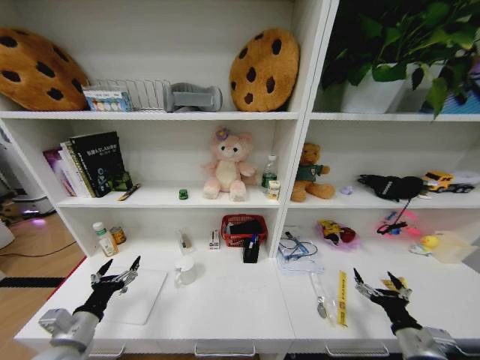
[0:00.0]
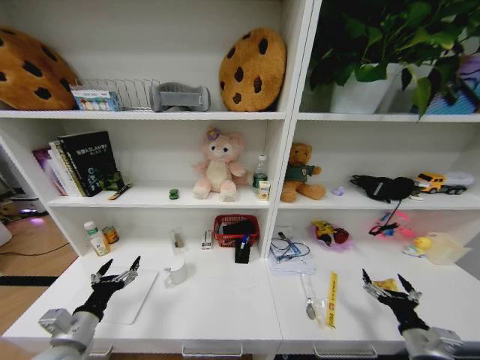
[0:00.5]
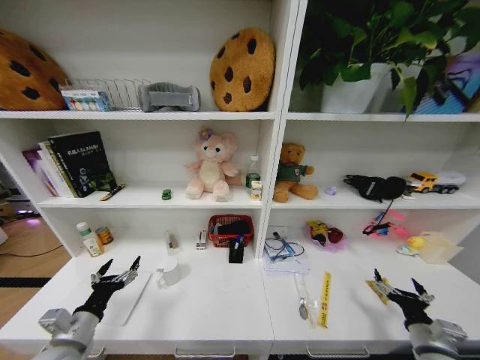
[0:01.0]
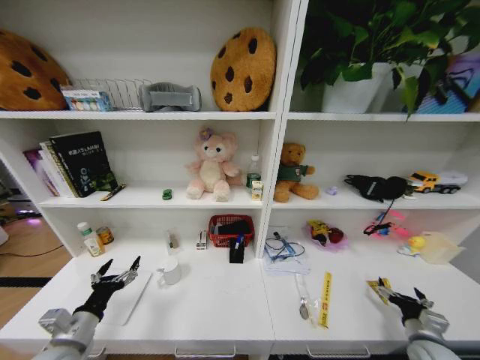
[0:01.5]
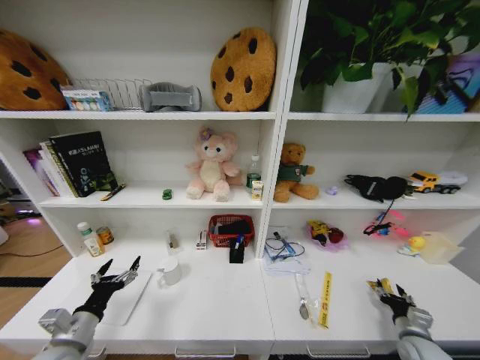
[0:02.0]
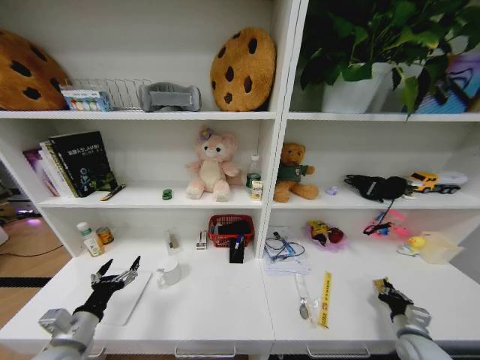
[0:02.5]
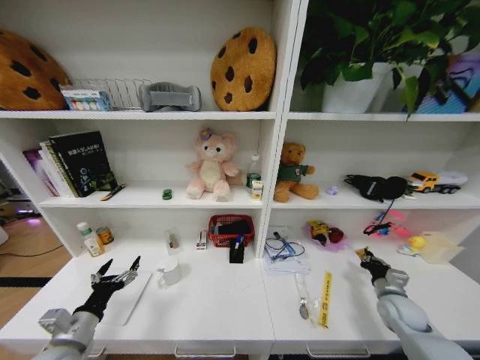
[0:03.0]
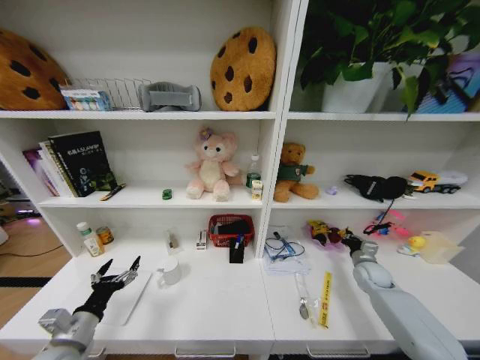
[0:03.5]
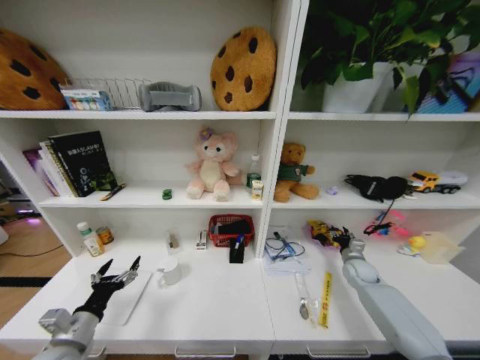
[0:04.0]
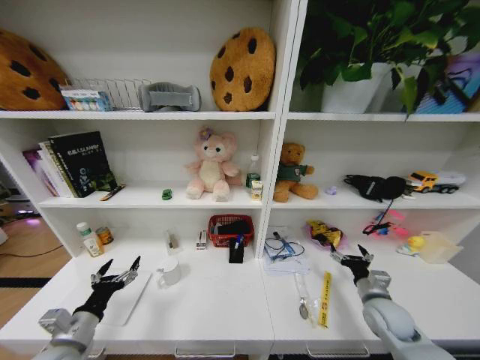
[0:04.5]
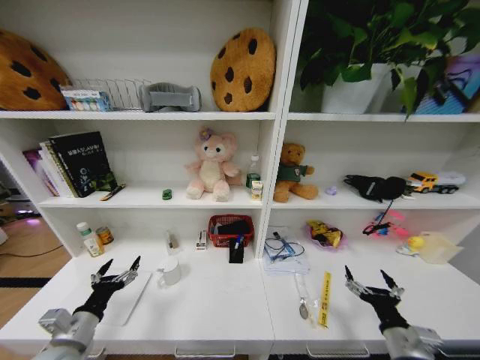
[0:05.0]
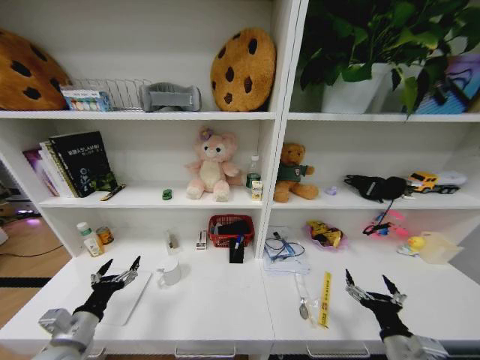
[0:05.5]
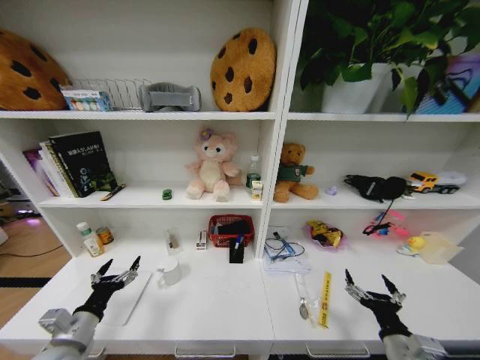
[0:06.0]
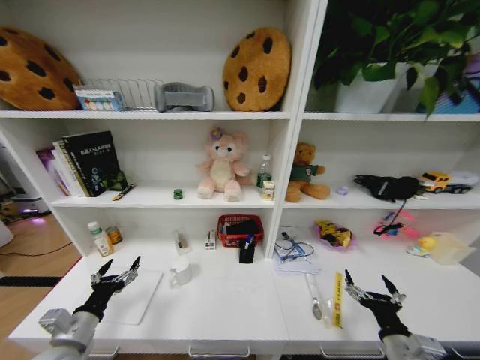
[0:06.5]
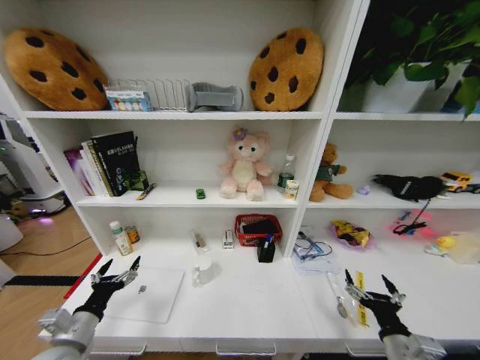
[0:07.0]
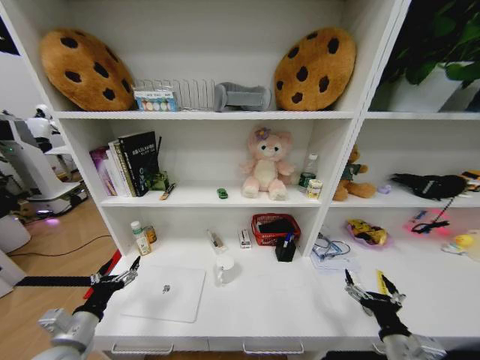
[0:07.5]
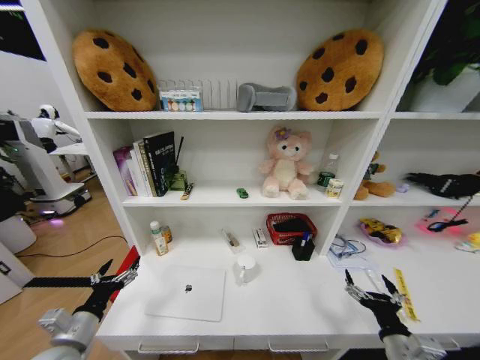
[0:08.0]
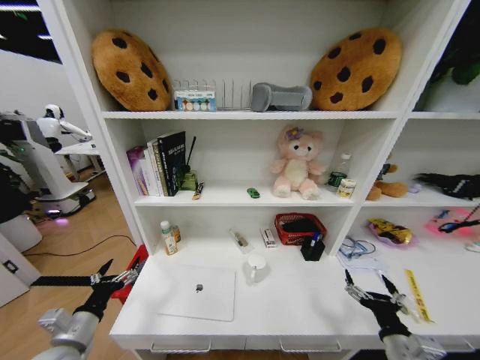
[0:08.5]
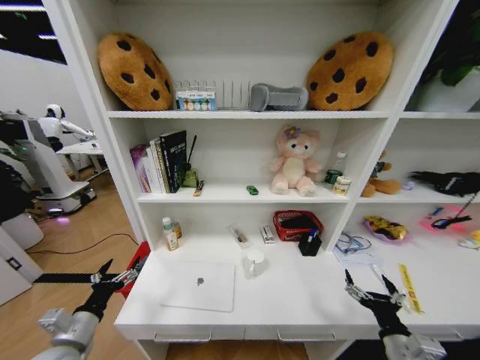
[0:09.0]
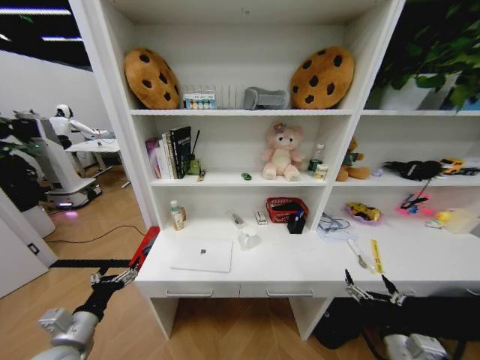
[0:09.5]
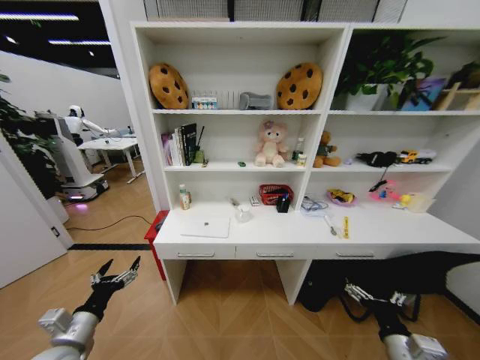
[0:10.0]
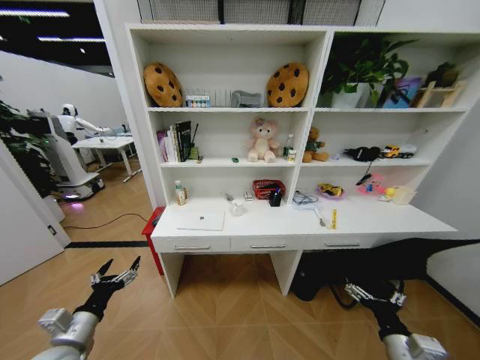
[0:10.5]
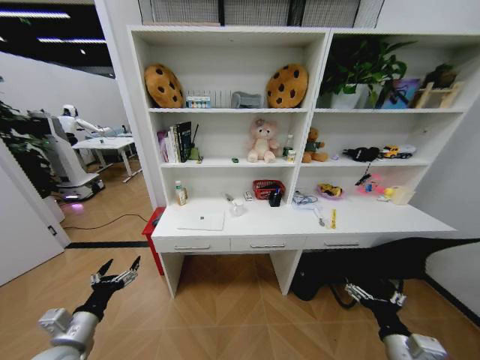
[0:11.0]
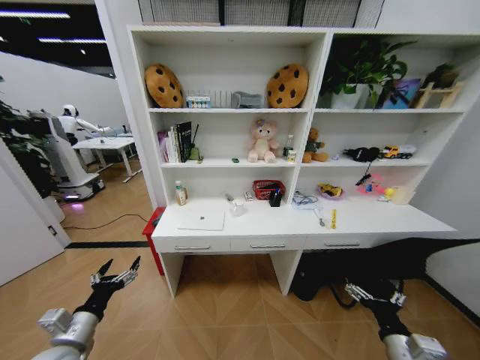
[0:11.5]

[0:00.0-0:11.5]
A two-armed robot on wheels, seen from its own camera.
Task of the whole recording: Organize the objects on the table.
0:00.0 to 0:02.0: The right gripper is displaced to the right, downward and forward by about 15 cm, and closes up.
0:02.0 to 0:04.0: The right gripper is displaced forward by some 20 cm, and closes, then reopens.
0:04.0 to 0:06.0: The right gripper shifts some 30 cm backward, and opens its fingers.

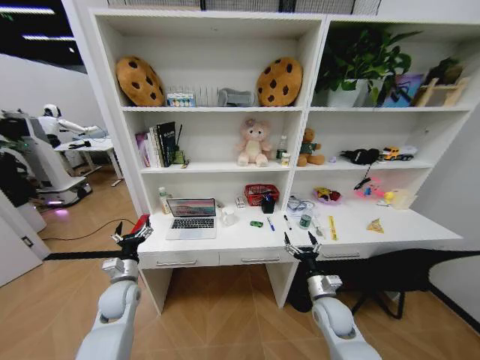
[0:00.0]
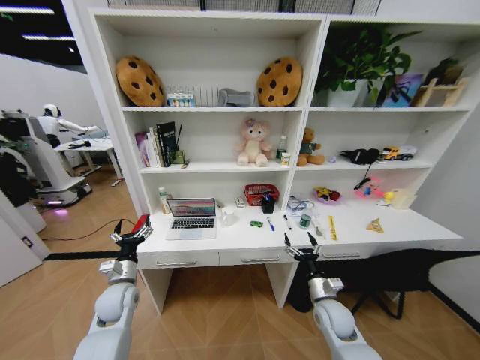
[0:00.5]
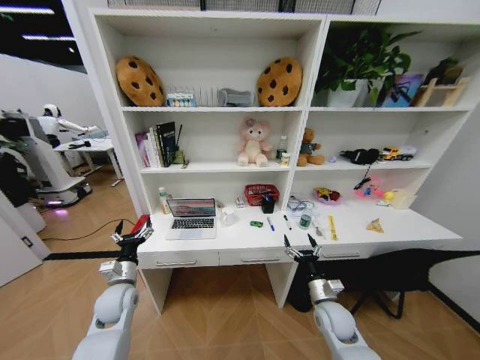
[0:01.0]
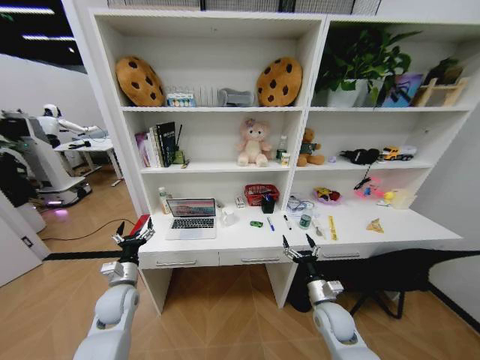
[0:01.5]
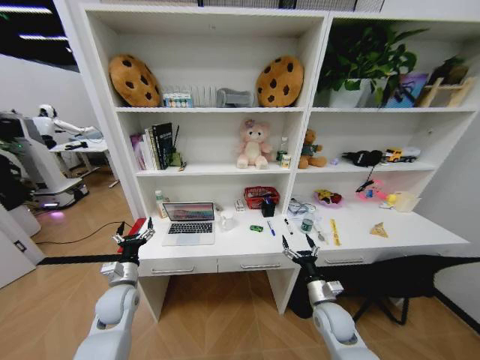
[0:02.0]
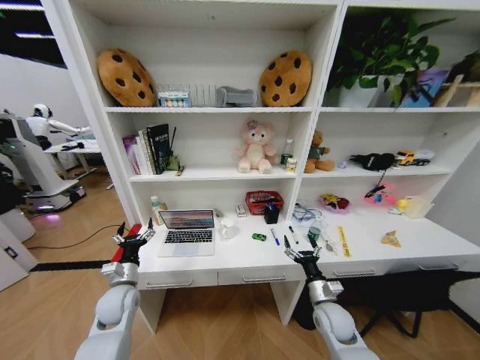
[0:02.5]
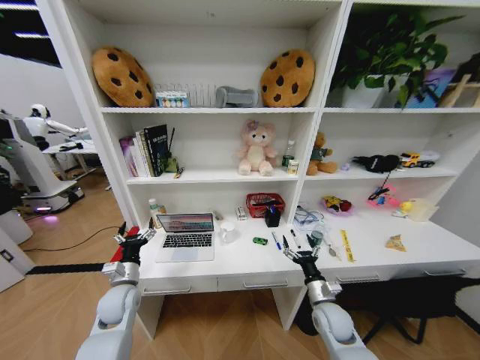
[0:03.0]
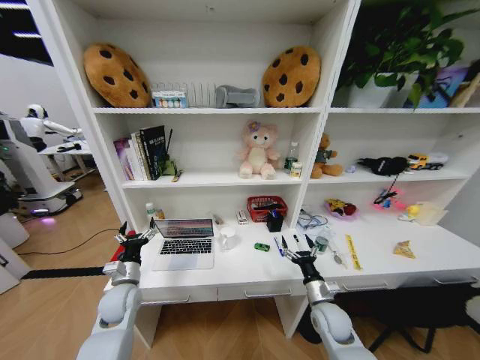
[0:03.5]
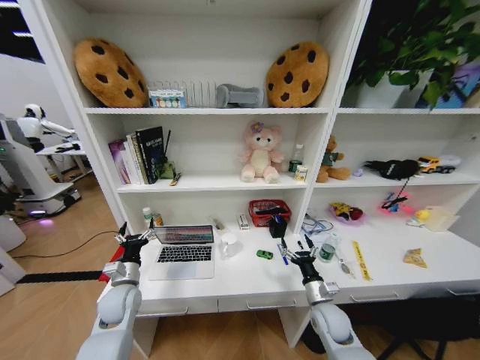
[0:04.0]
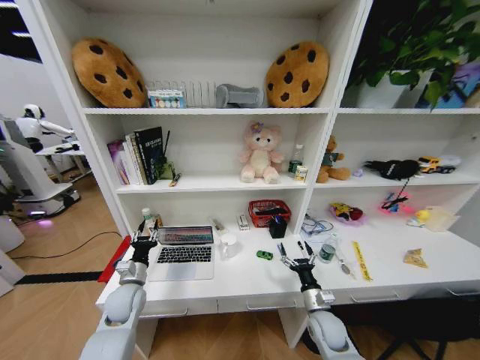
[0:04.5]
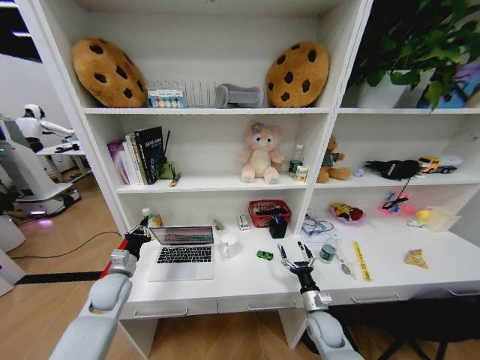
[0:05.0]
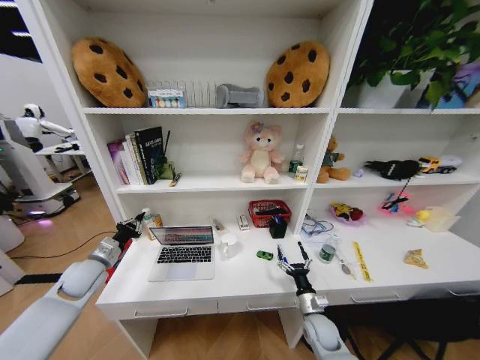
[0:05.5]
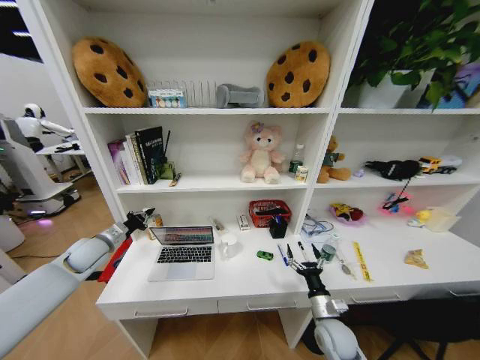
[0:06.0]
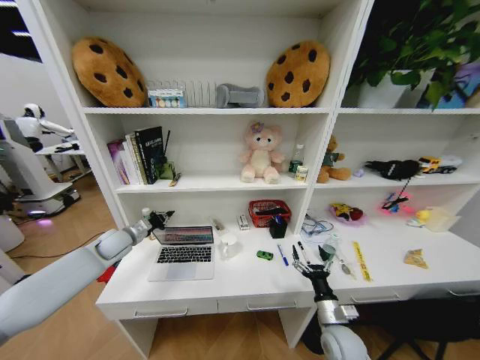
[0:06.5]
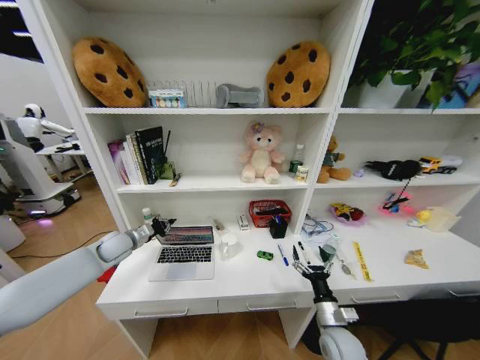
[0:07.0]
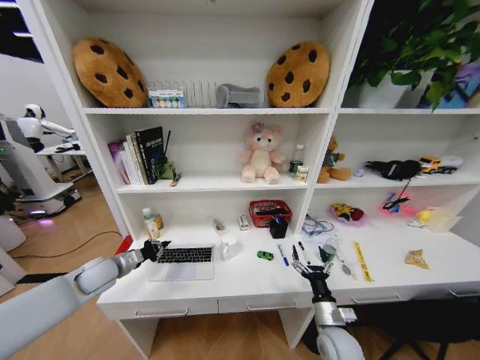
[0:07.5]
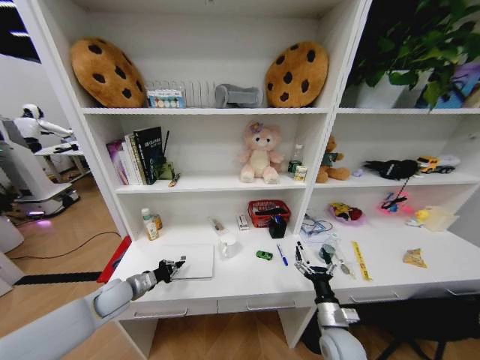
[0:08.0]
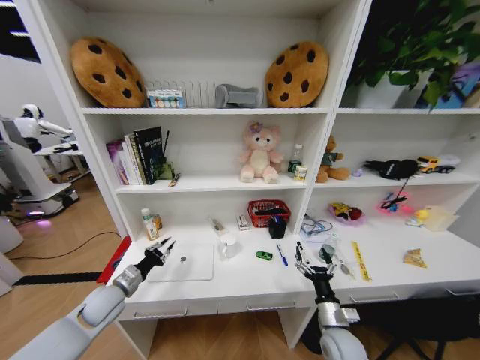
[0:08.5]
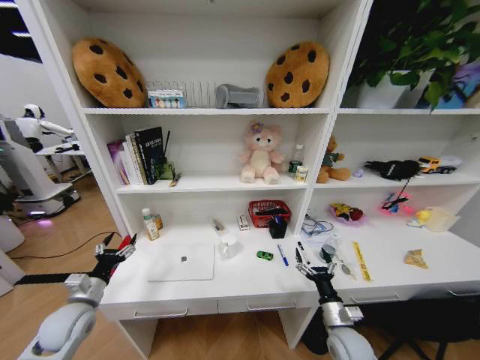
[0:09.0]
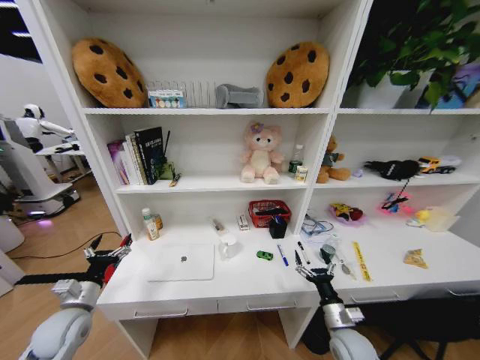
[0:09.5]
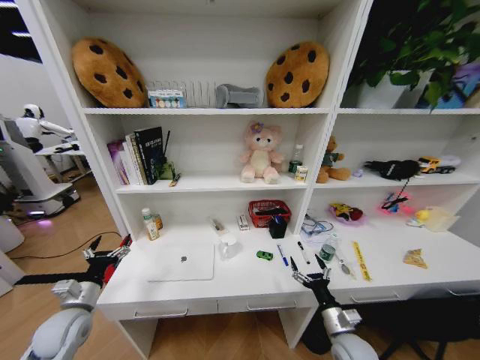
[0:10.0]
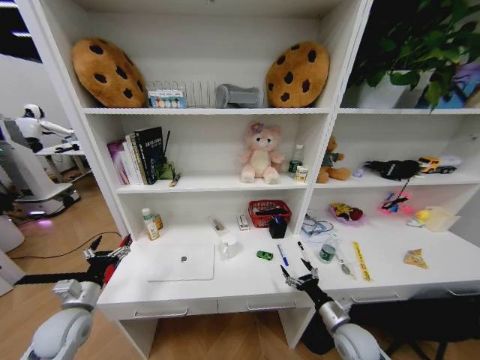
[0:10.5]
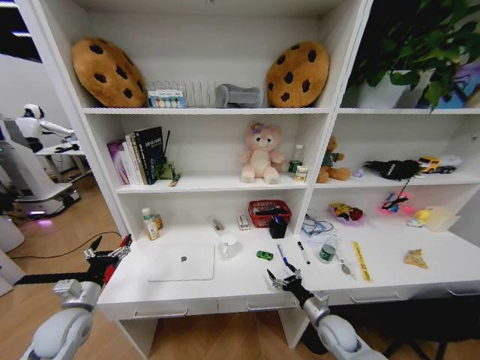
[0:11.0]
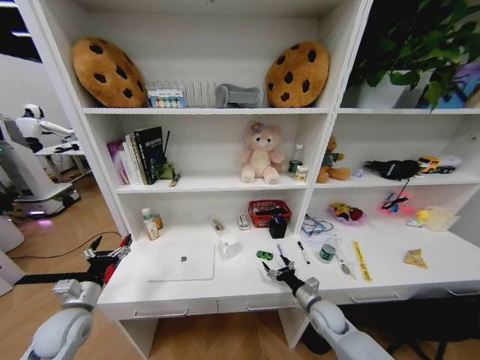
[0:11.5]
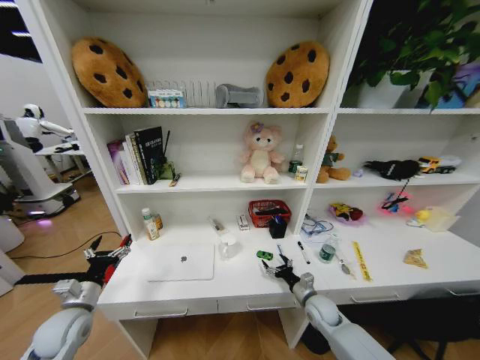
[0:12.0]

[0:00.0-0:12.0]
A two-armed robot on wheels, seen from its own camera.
Task of the whole recording: Organize the objects on the table.
0:04.0 to 0:06.0: The left gripper is displaced to the left, upward and forward by about 15 cm, and closes.
0:06.0 to 0:08.0: The left gripper moves downward, to the right and backward, about 15 cm.
0:08.0 to 0:10.0: The left gripper moves backward and to the left, approximately 10 cm, and opens its fingers.
0:10.0 to 0:12.0: The right gripper shifts about 10 cm forward.

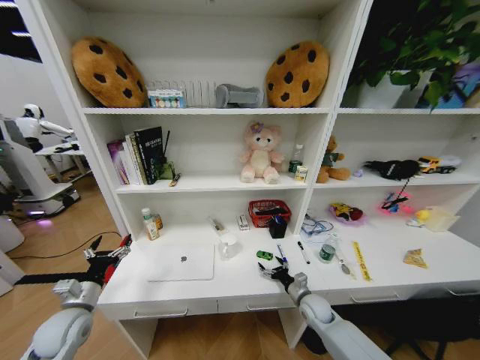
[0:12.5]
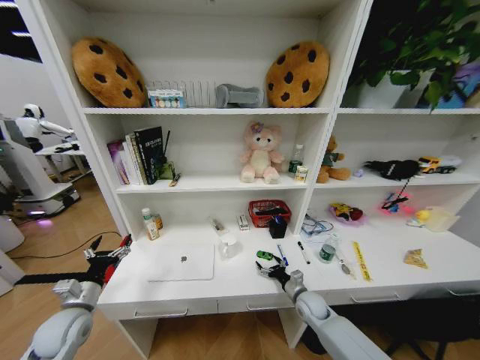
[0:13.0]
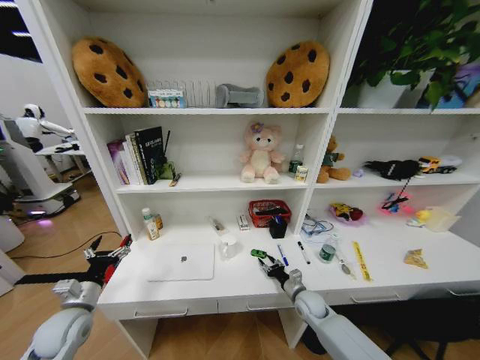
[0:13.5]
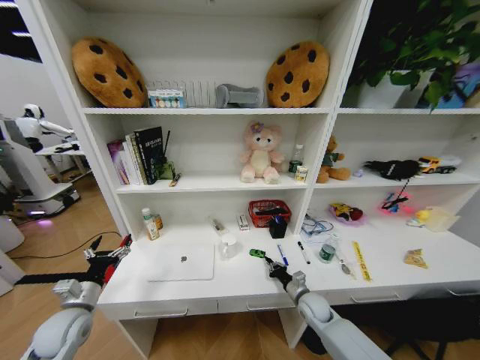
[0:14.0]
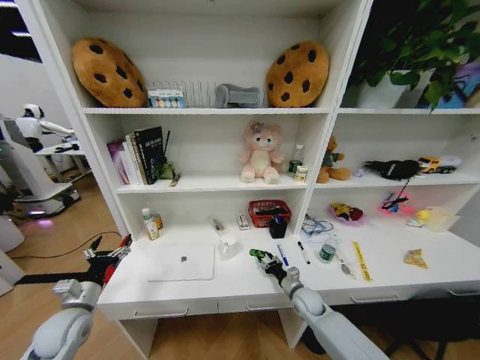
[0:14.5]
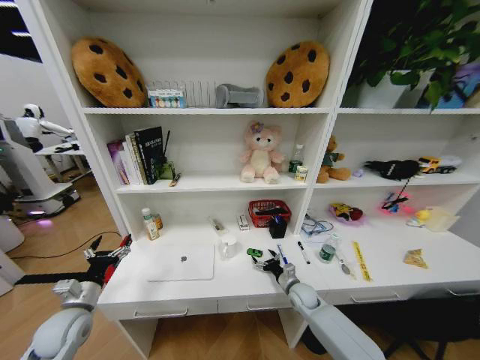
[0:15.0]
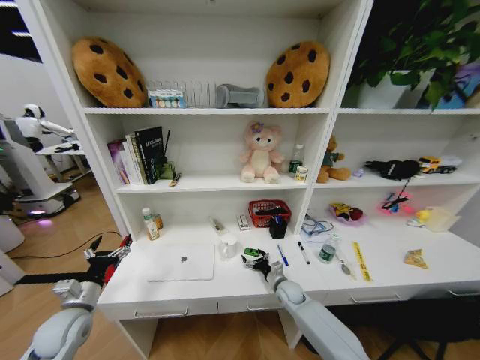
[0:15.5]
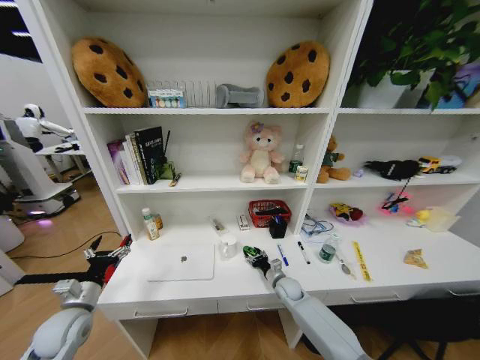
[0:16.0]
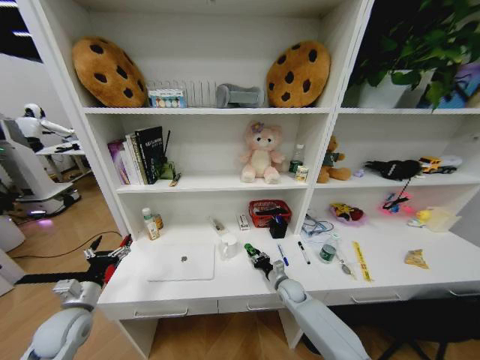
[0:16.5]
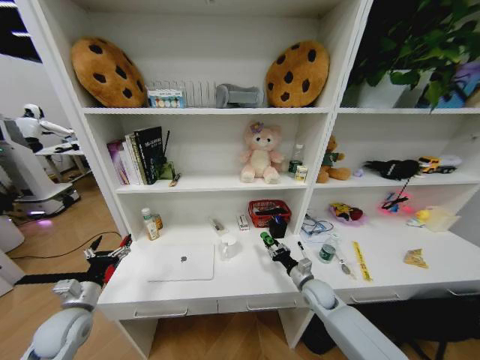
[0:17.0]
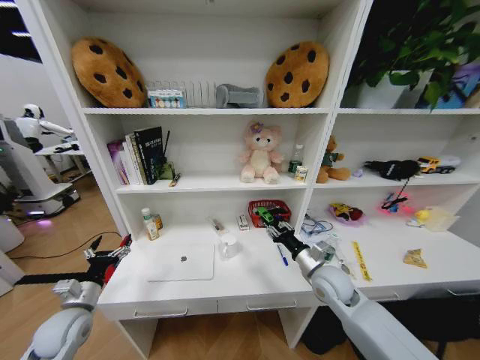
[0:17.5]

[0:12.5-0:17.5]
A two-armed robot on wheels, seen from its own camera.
Task of the whole recording: Organize the objects on the table.
0:12.5 to 0:15.0: The right gripper closes and opens again.
0:15.0 to 0:17.5: The right gripper travels upward by about 20 cm, and closes up.
